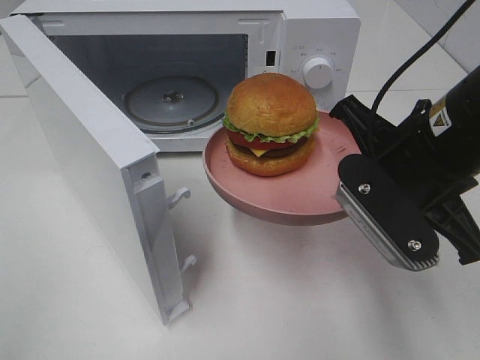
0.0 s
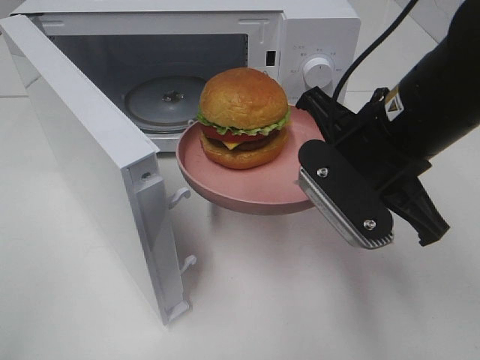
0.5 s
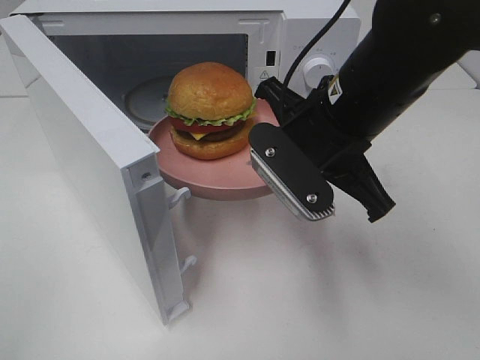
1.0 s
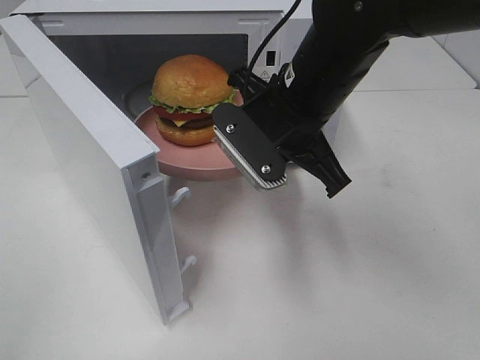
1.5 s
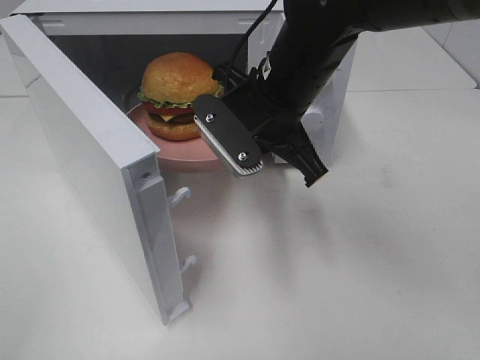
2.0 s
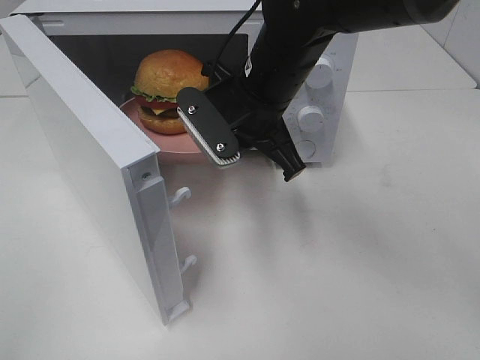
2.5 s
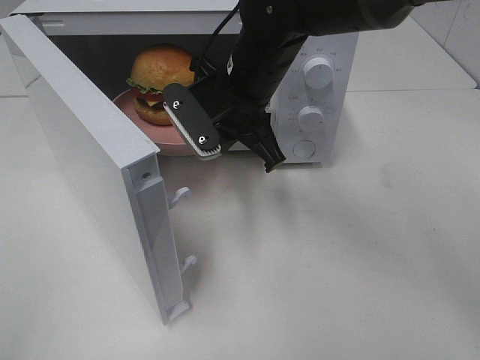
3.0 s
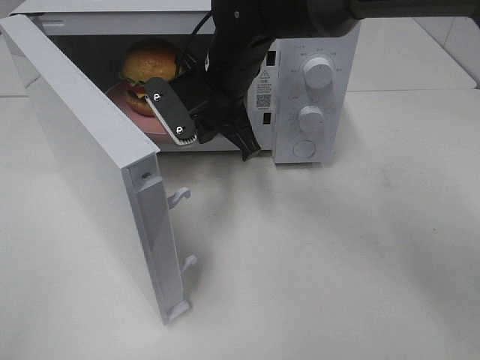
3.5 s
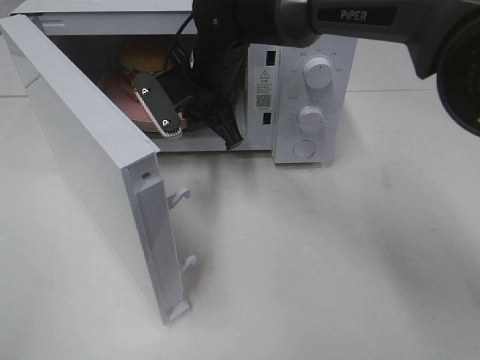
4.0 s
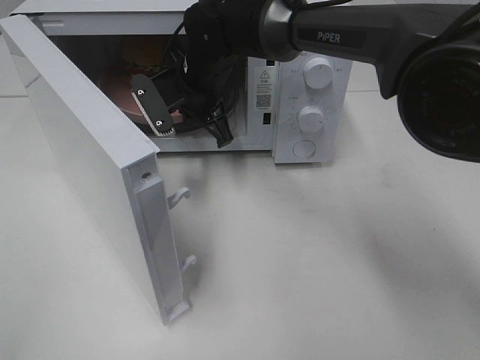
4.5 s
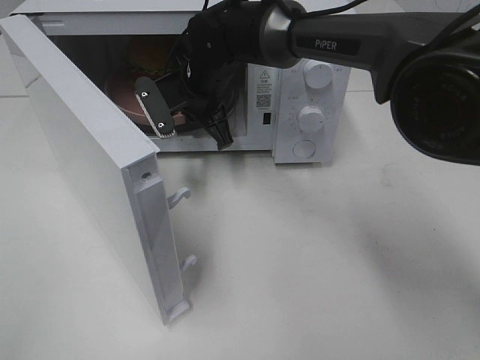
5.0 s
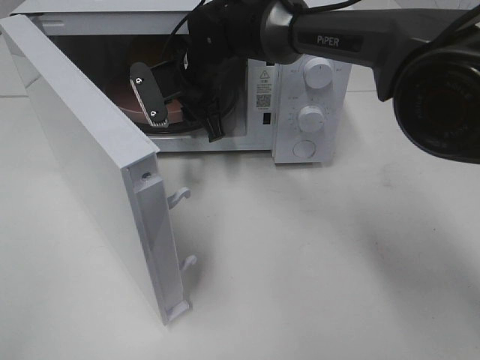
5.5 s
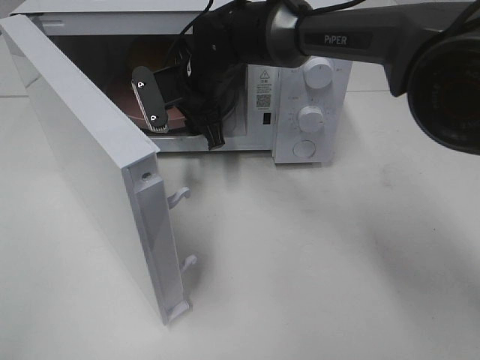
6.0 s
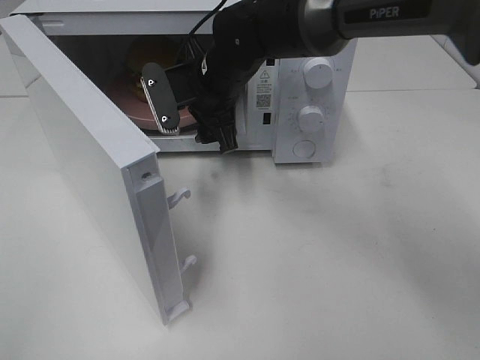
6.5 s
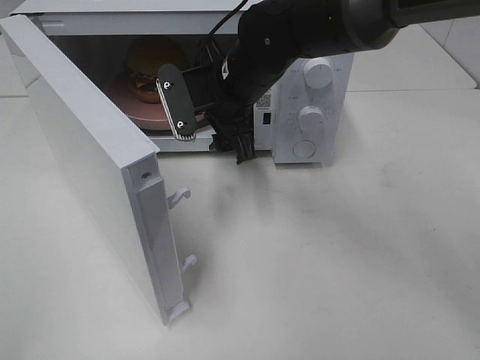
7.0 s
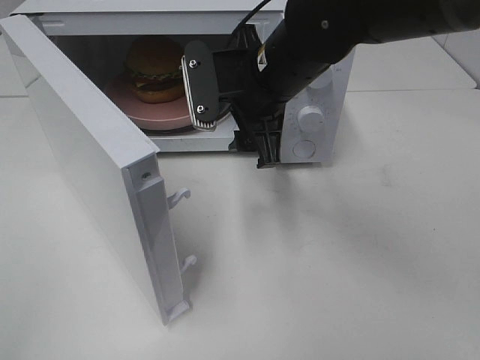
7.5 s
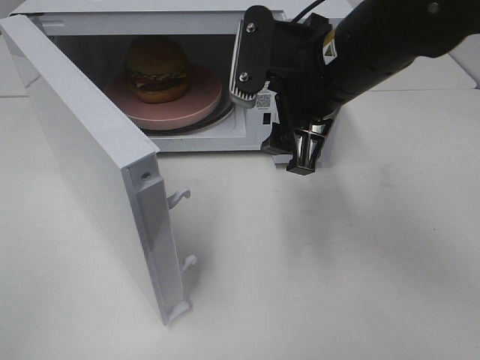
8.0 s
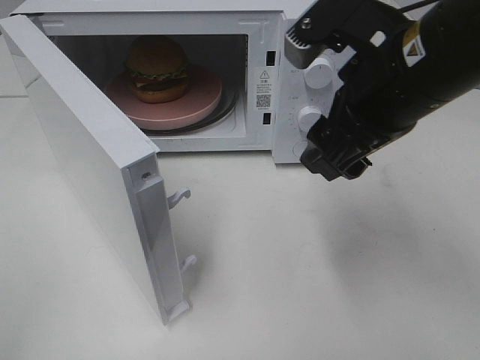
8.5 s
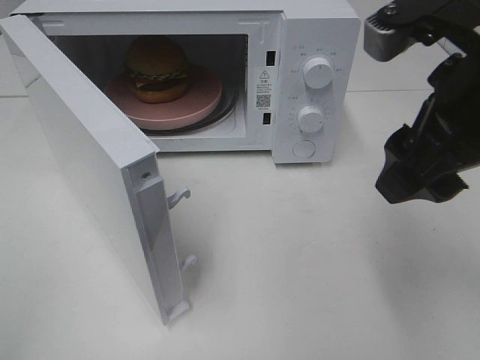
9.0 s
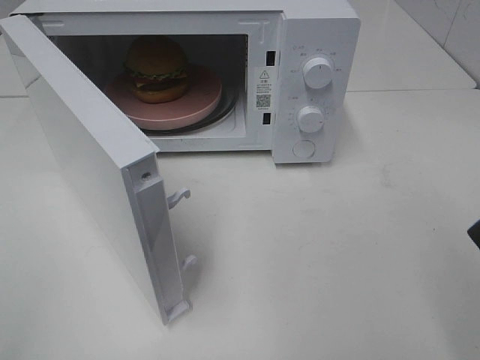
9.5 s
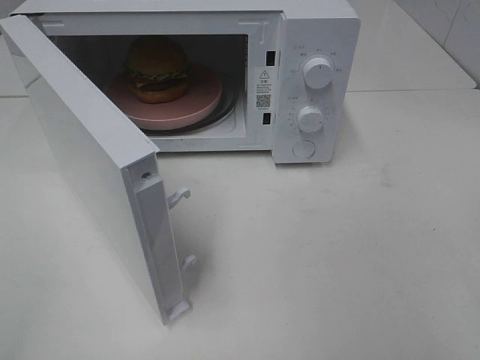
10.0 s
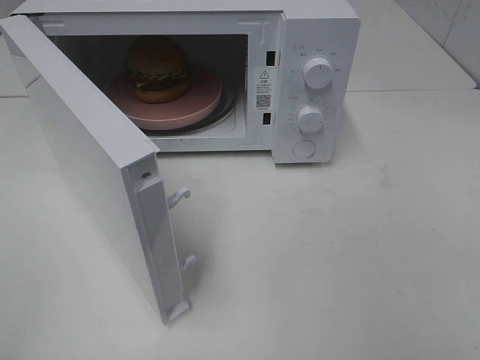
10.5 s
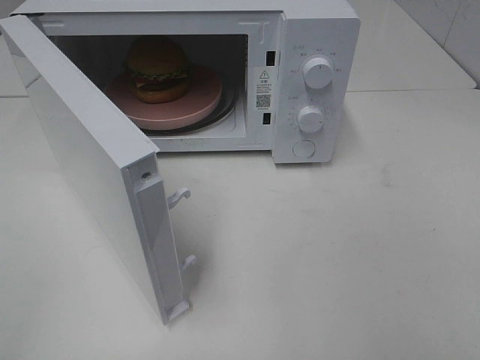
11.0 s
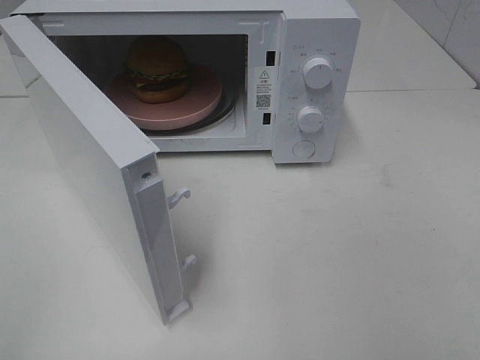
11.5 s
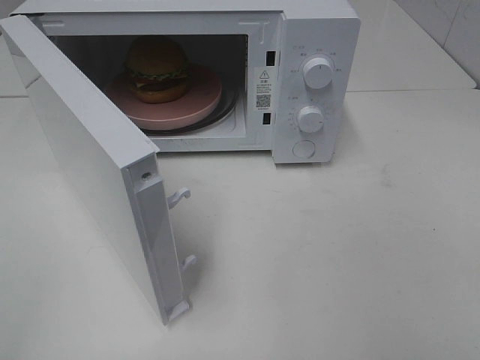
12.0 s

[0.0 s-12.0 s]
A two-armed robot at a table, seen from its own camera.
Task of the whole recording: Heat the burger.
Step, 0.0 to 6.0 s: Right hand: place the plate in the microwave.
0.0 to 2.0 s: The right gripper moves to the left and forward, approximately 15 cm.
2.0 to 4.0 s: The right gripper travels forward and to the left by some 10 cm.
4.0 to 6.0 s: The right gripper opens up.
6.0 to 8.0 s: The right gripper is displaced backward, to the right and upward by roughly 20 cm.
8.0 to 10.0 s: The right gripper shifts approximately 30 cm backward and to the right.

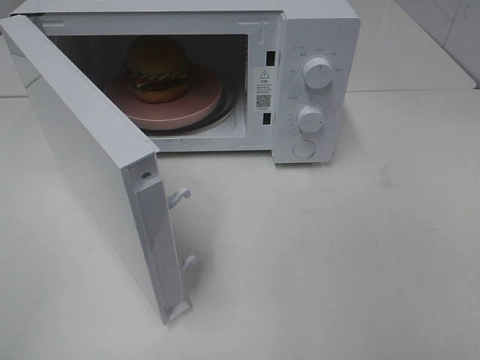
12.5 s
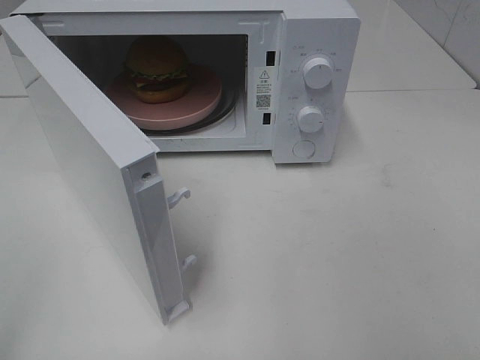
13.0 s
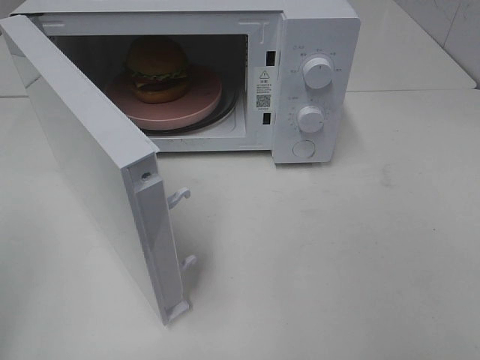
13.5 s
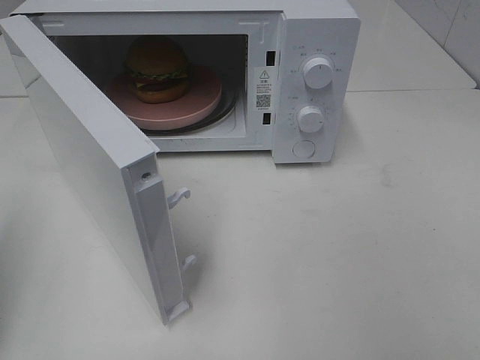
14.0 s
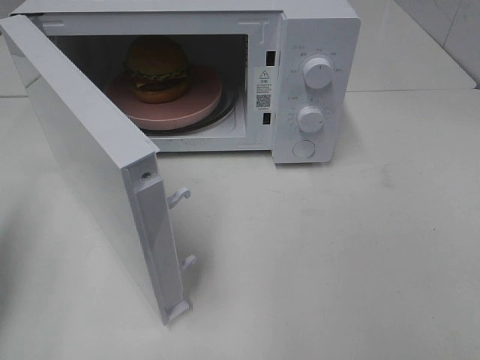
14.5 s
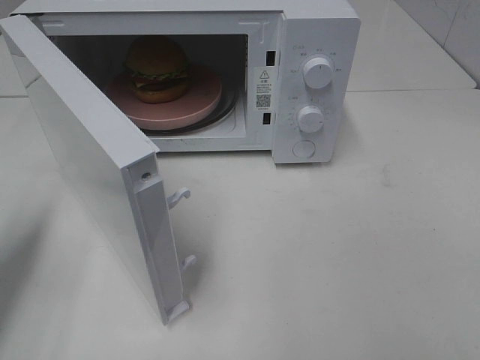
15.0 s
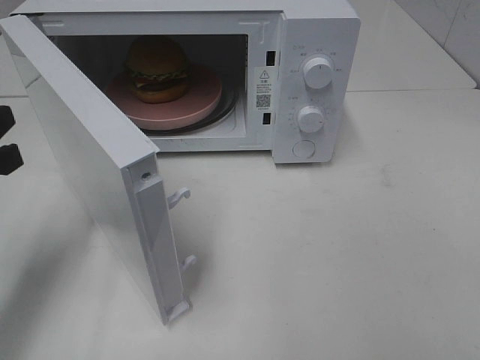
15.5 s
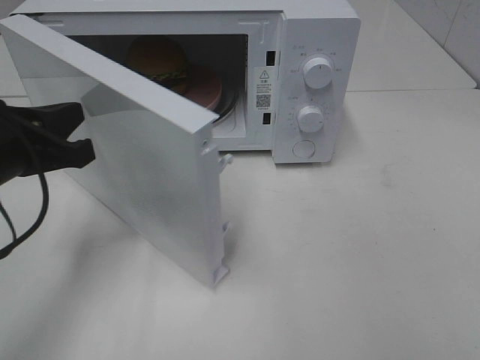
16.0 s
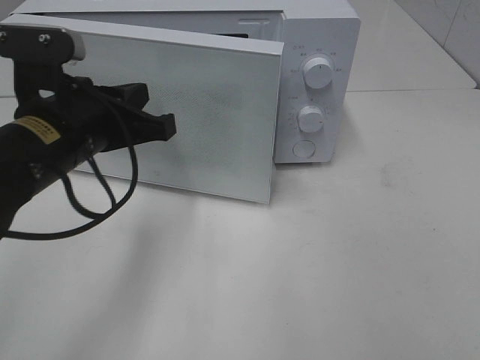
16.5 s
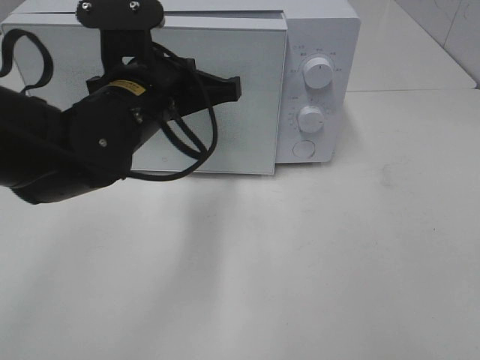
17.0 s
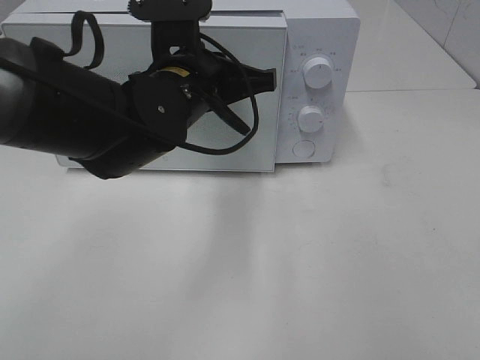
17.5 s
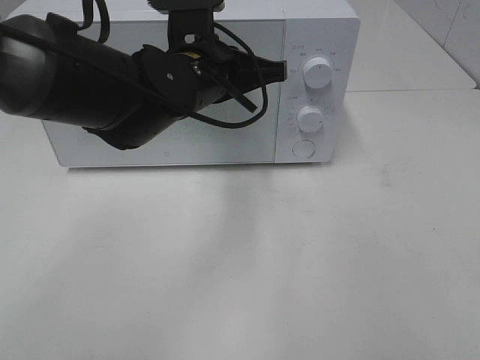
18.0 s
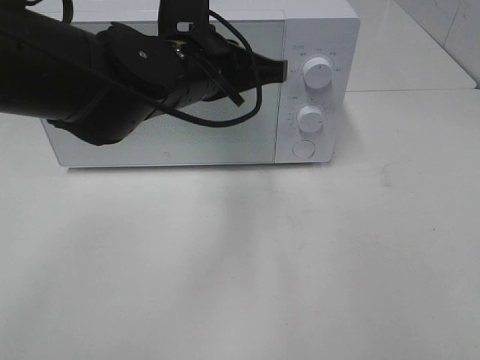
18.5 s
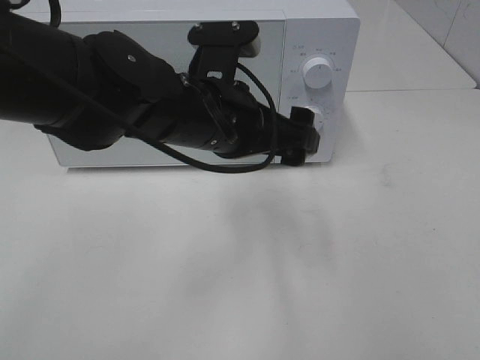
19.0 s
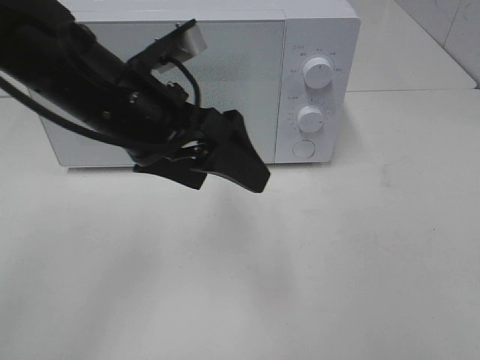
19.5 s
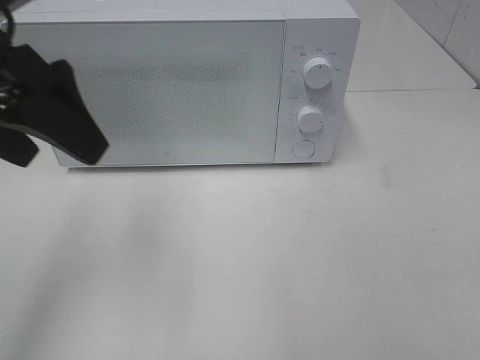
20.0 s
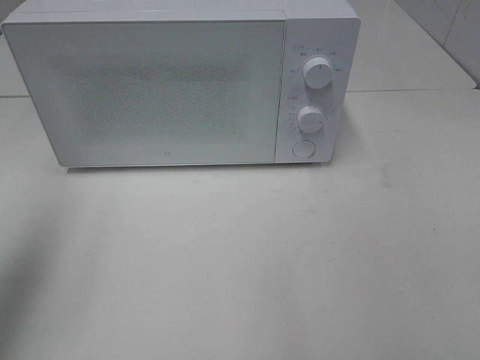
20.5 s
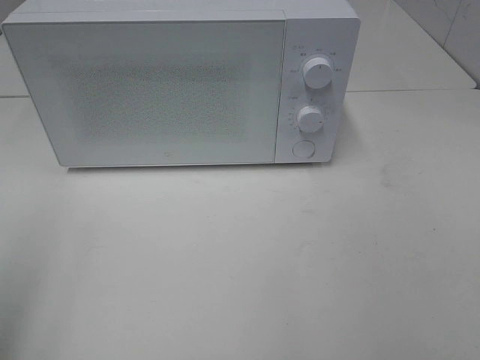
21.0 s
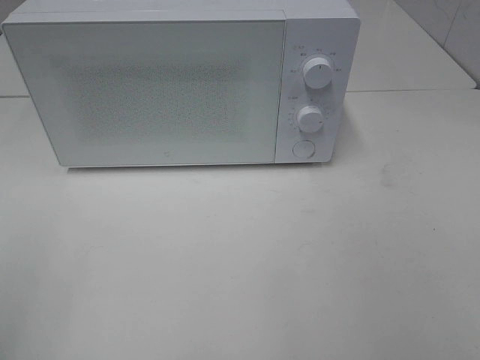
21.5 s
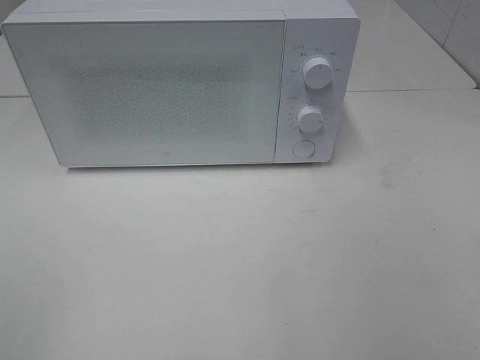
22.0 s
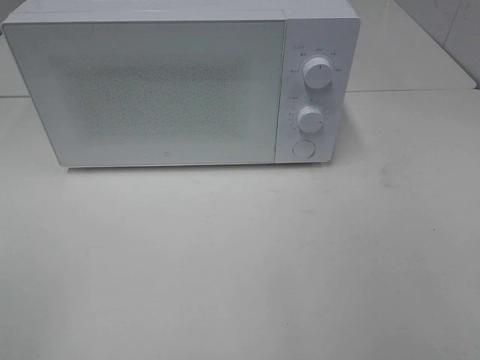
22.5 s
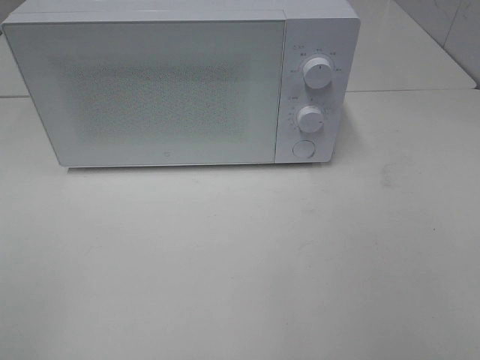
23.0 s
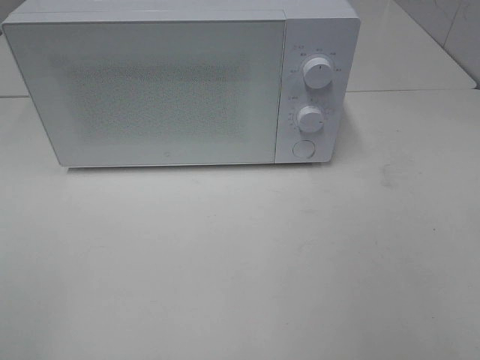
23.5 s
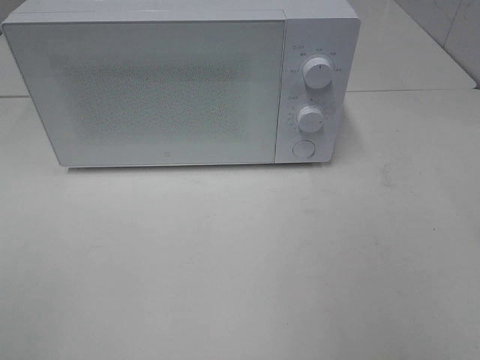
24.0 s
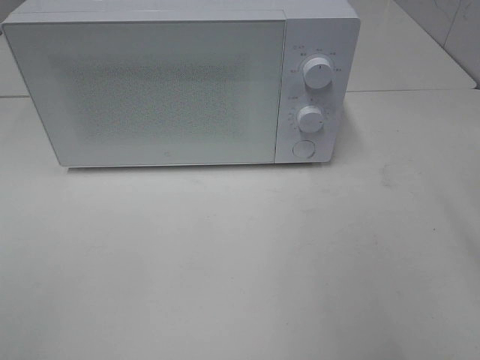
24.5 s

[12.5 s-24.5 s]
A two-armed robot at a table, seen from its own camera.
Task of the whole recording: Heat the burger.
Step, 12.5 to 18.5 s: Left hand: close the microwave door.
12.5 to 14.5 s: The left gripper shifts roughly 20 cm forward, and closes.
14.5 to 16.5 s: The left gripper travels to the right and forward by approximately 20 cm.
16.5 to 18.5 s: The left gripper moves to the right and forward, roughly 10 cm.
18.5 to 20.5 s: The left gripper travels to the left, backward and upward by some 30 cm, and opens.
20.5 to 22.5 s: The left gripper goes approximately 20 cm backward.

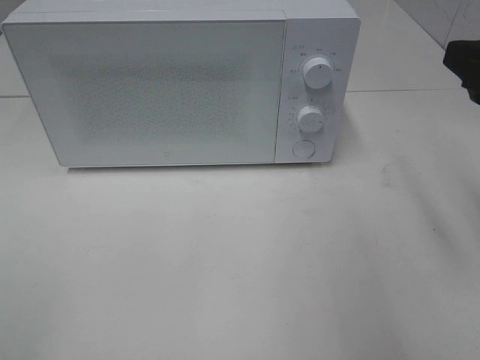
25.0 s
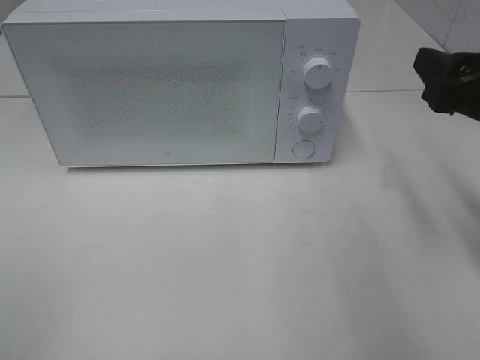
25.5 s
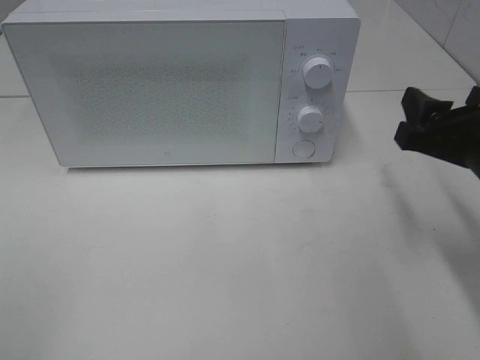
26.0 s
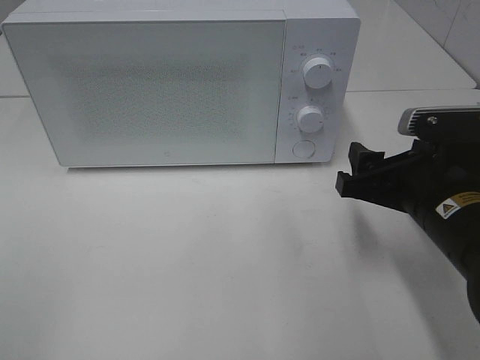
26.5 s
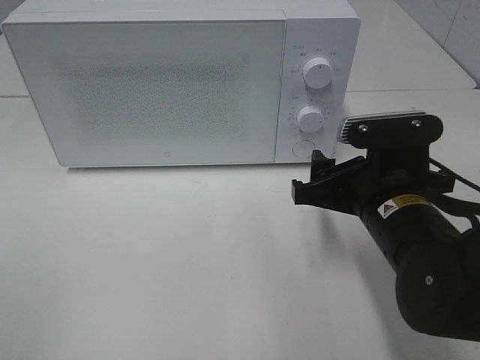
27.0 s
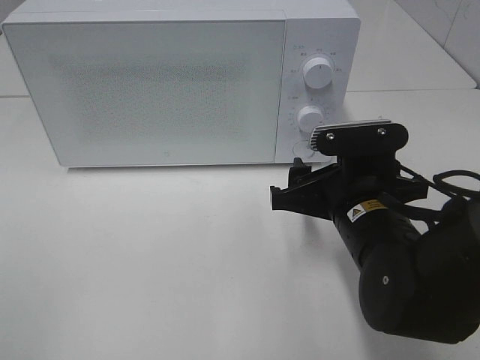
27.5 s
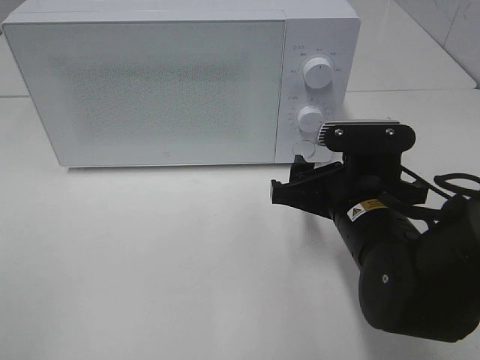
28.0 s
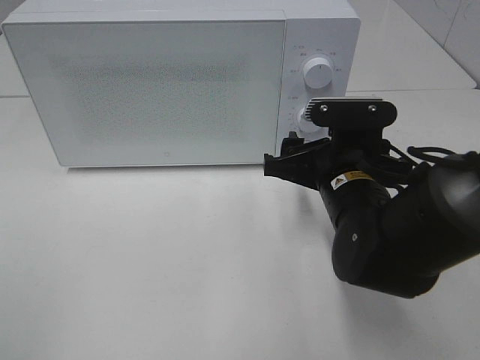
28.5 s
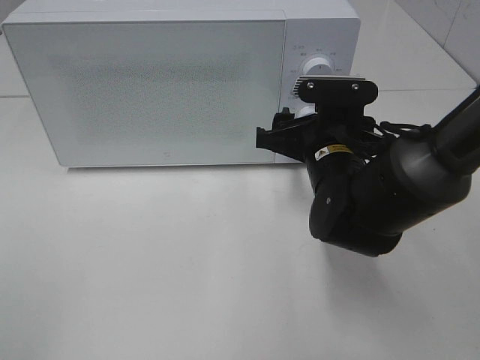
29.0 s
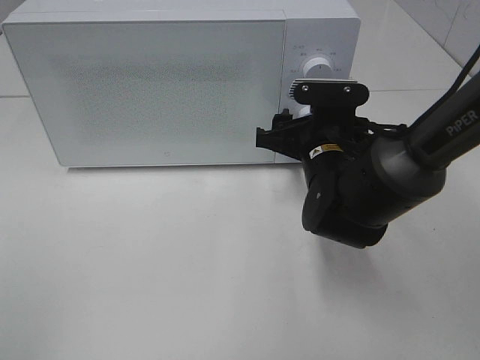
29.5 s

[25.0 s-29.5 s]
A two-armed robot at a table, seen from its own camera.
Task of the whole recording: Heat the burger.
25.0 to 27.0 s: The right gripper heads downward and to the left, covering some 20 cm.
27.0 to 29.5 s: The right gripper moves forward, some 10 cm.
